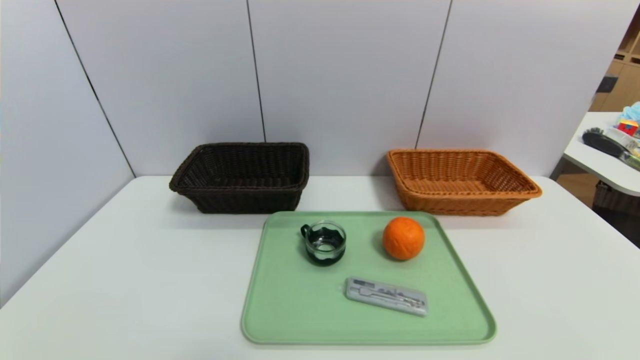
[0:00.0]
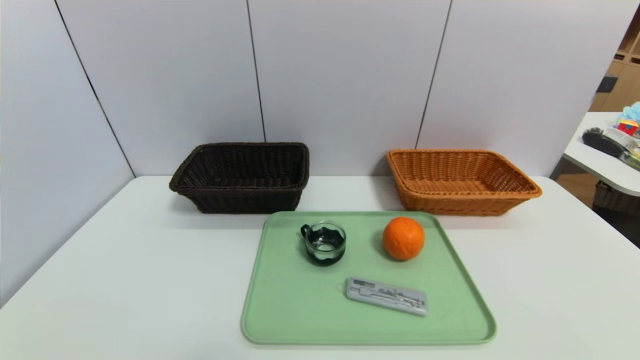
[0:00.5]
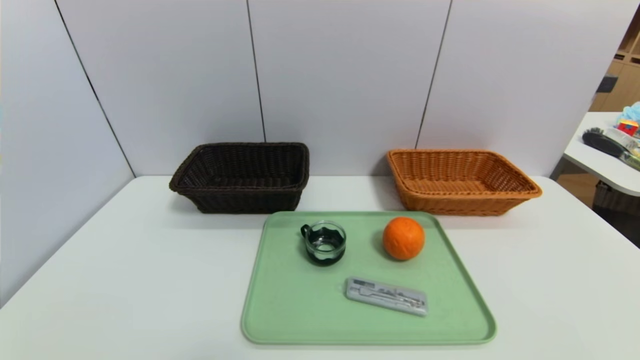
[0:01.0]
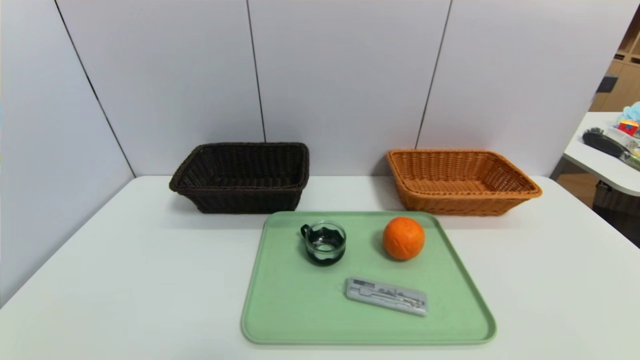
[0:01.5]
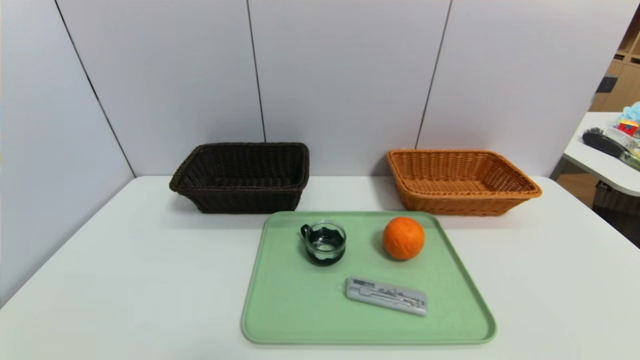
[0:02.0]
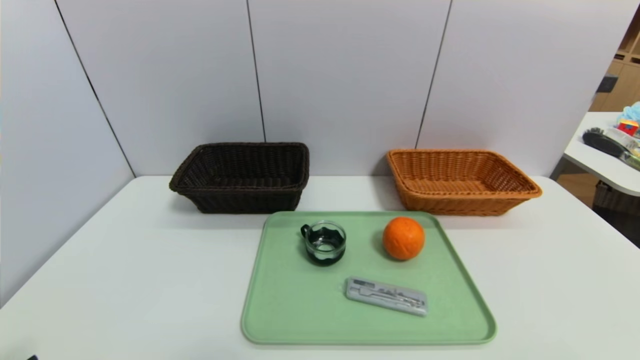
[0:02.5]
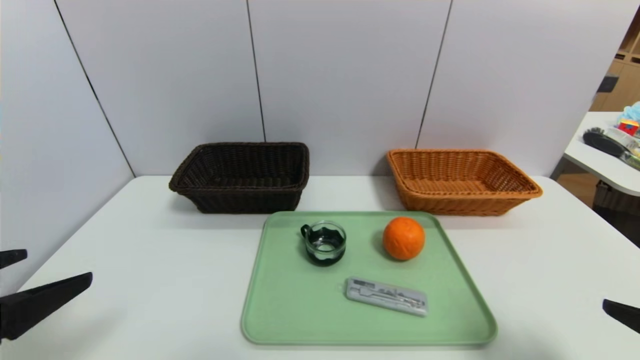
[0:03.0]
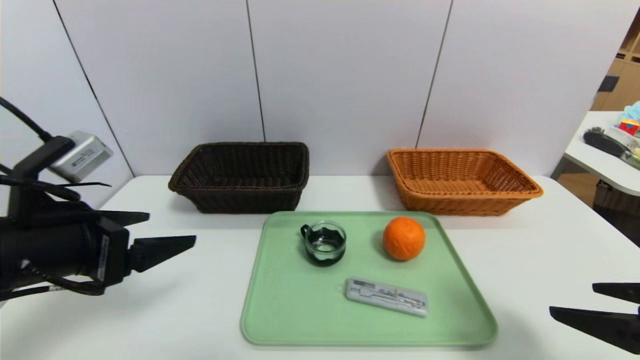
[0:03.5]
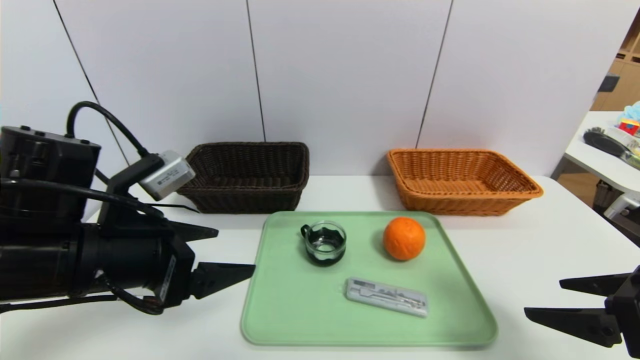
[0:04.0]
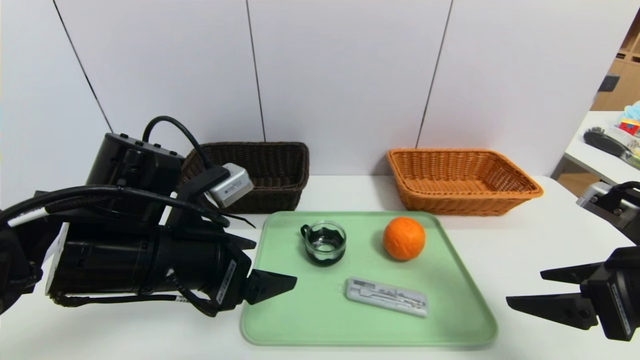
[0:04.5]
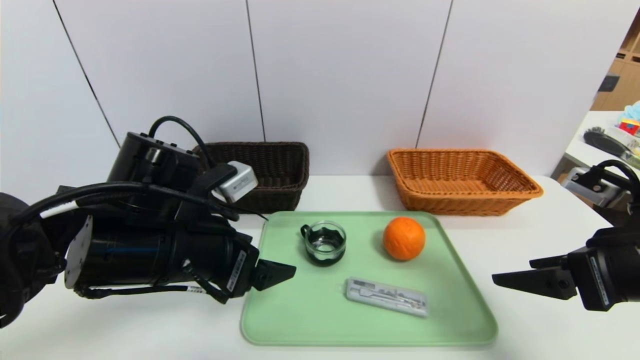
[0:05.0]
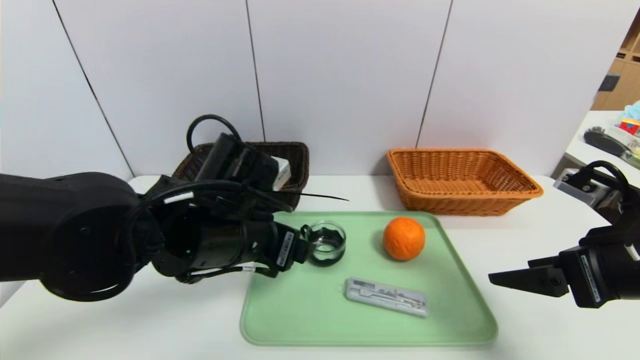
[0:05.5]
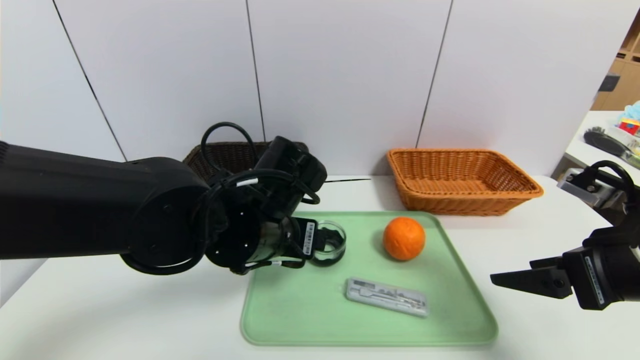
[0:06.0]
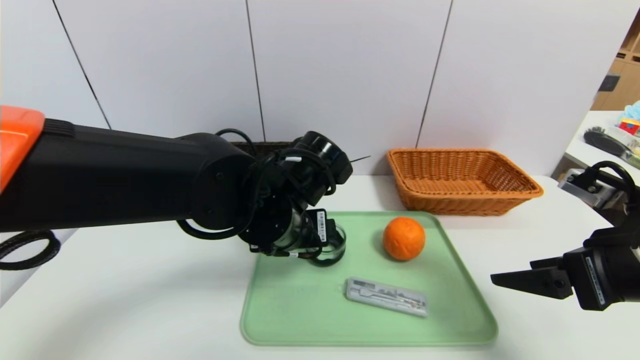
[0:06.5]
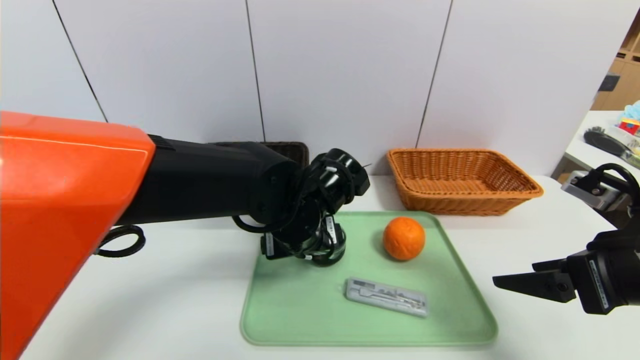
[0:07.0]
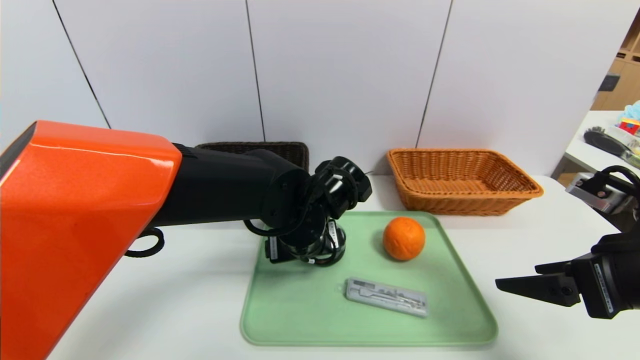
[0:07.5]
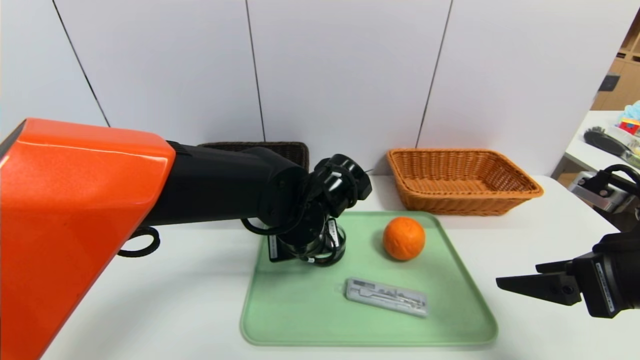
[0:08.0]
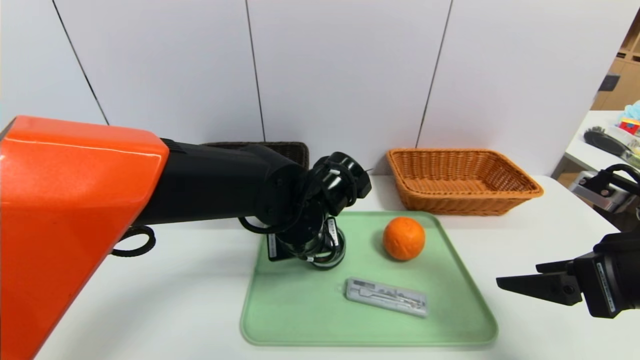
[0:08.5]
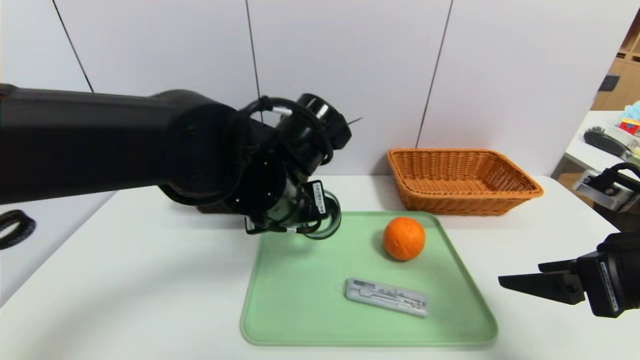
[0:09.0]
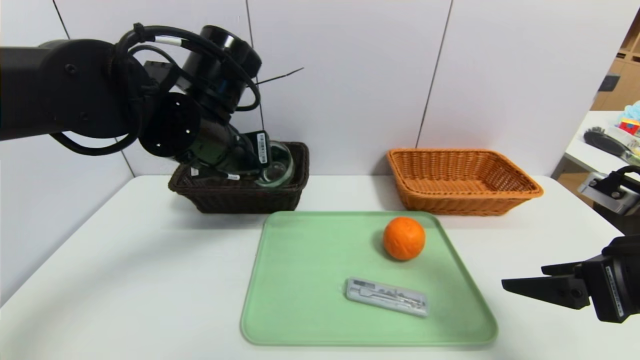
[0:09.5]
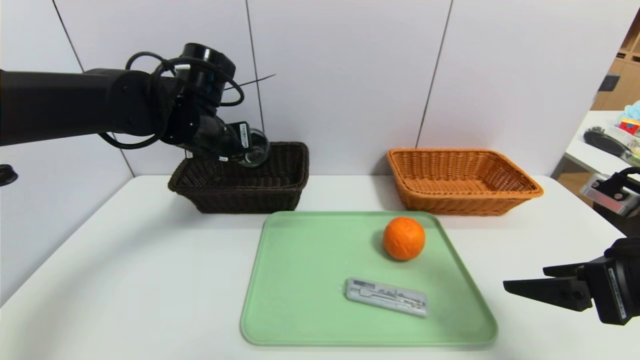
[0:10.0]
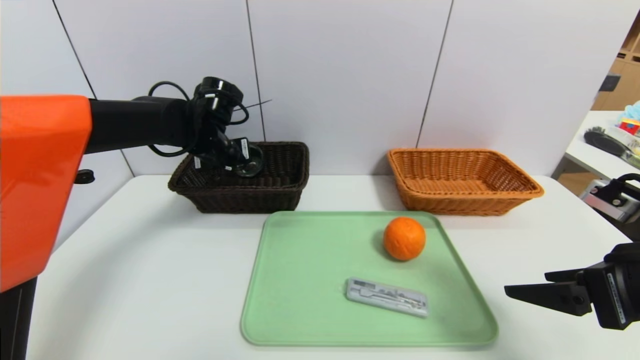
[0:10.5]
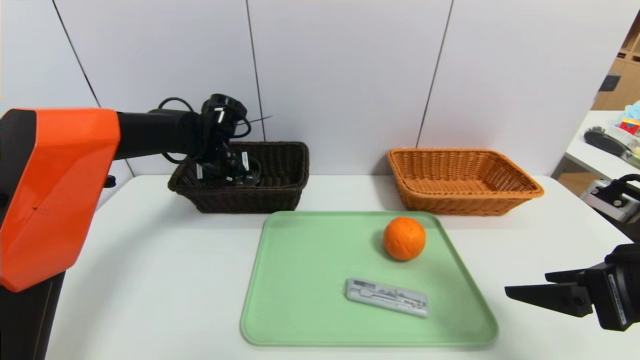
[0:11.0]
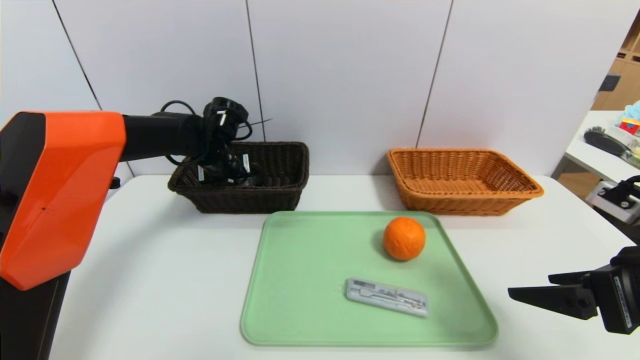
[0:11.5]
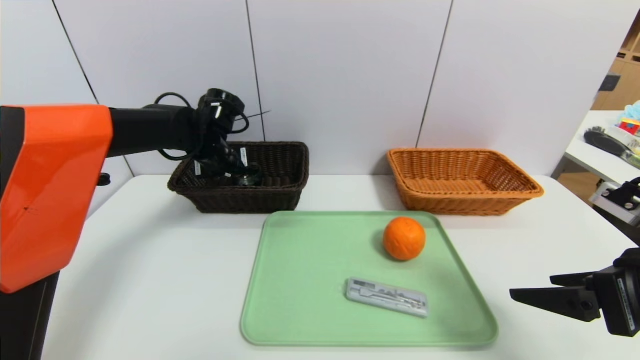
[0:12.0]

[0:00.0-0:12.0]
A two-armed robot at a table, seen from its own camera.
Task of the whole recording: place the food in the right basket with the right gripper, and place the non food items in the left basket with the left gripper.
Step, 0:00.0 to 0:12.0: Grasp the tea cup and put it in the left basket.
0:02.0 to 0:04.0: The left gripper moves forward, upward and to the right, approximately 25 cm; the right gripper travels forward and upward by approximately 20 cm.
0:04.0 to 0:06.0: The left gripper is displaced to the right and forward by roughly 15 cm.
0:06.0 to 0:08.0: The left gripper shifts by about 5 cm, and closes up.
0:08.0 to 0:10.0: The left gripper travels to the left, upward and forward by approximately 20 cm, and closes up.
0:10.0 to 0:12.0: The left gripper goes some 10 cm forward and downward, and opens its fingers.

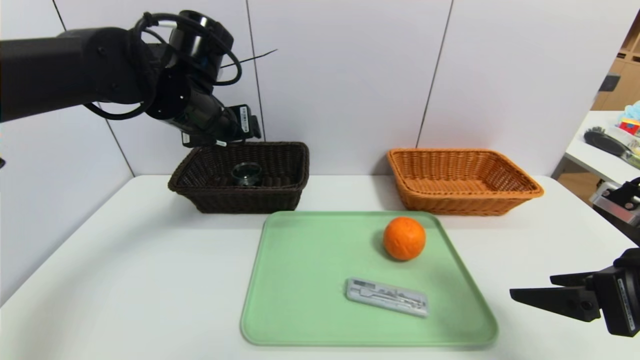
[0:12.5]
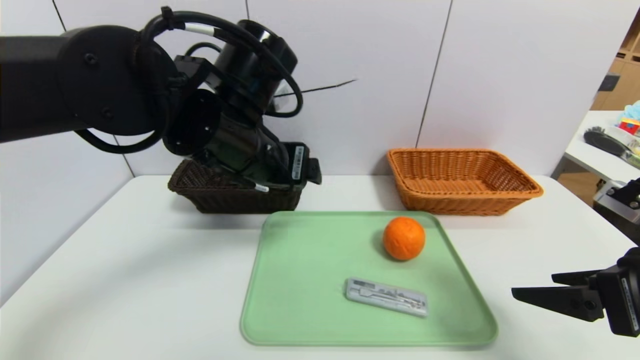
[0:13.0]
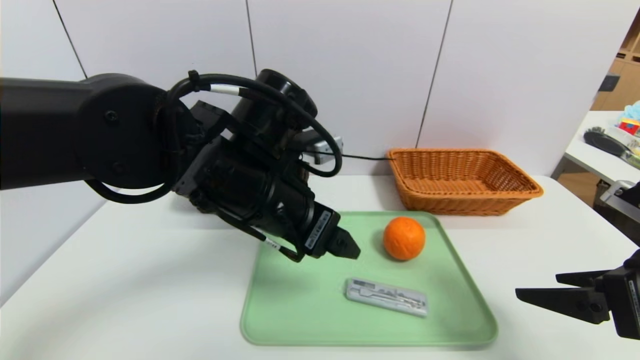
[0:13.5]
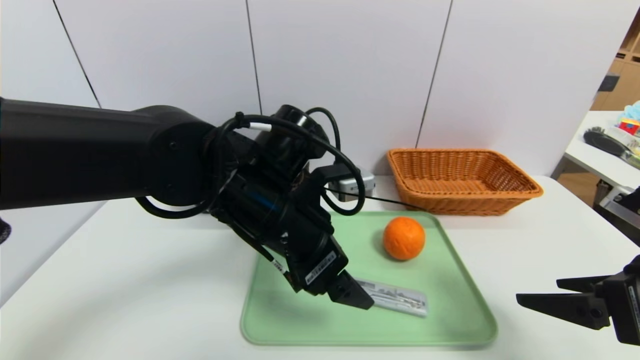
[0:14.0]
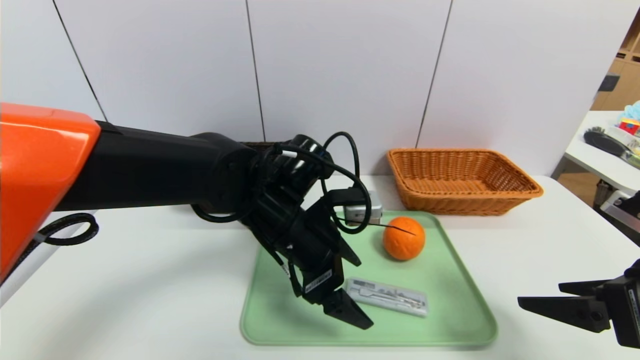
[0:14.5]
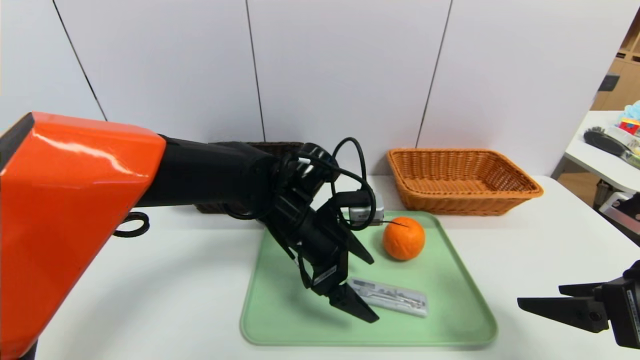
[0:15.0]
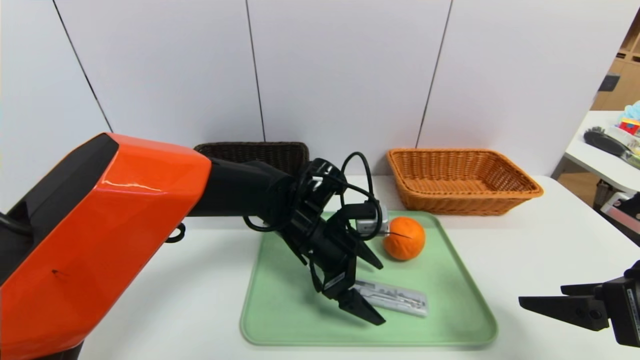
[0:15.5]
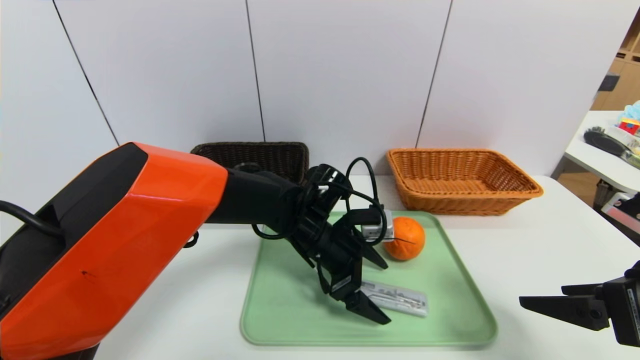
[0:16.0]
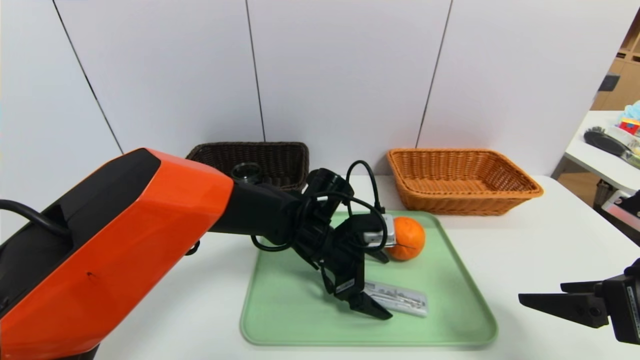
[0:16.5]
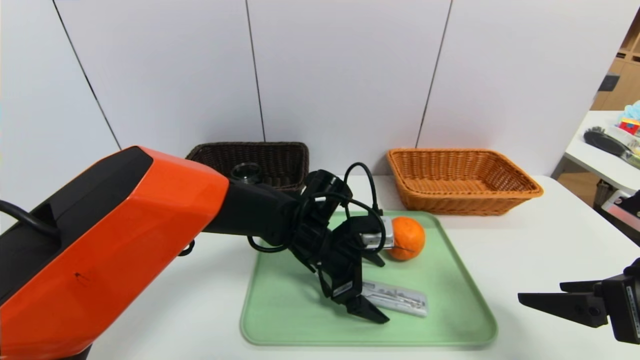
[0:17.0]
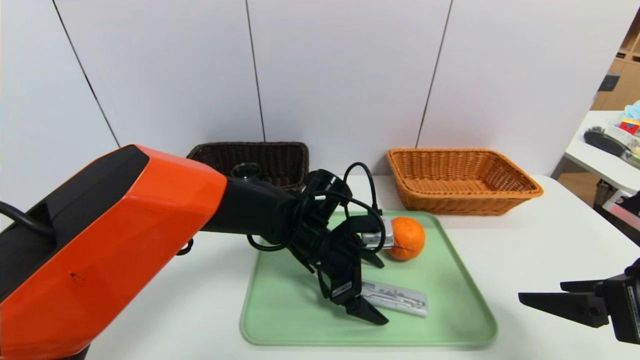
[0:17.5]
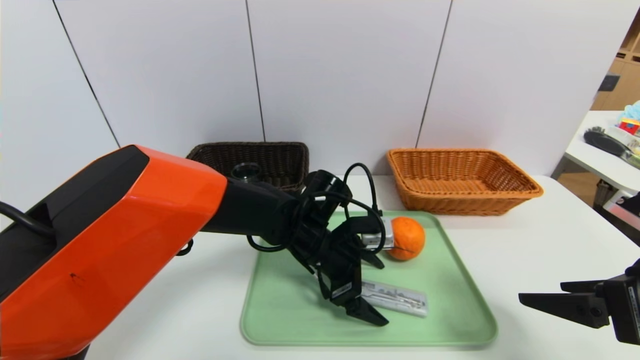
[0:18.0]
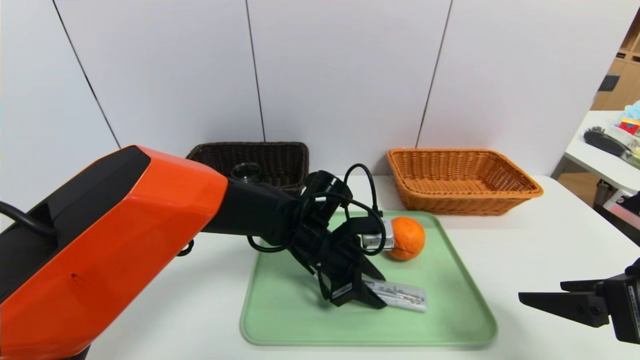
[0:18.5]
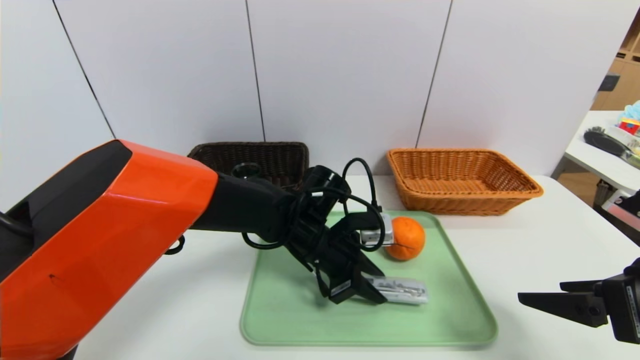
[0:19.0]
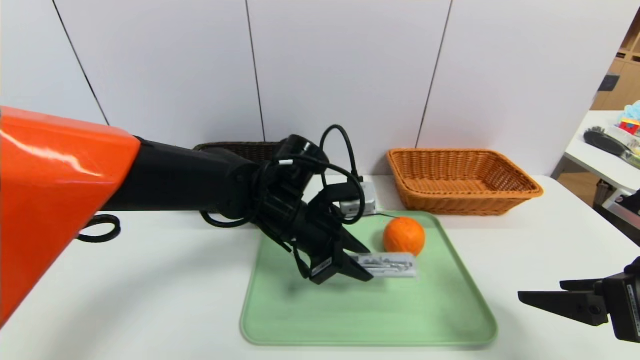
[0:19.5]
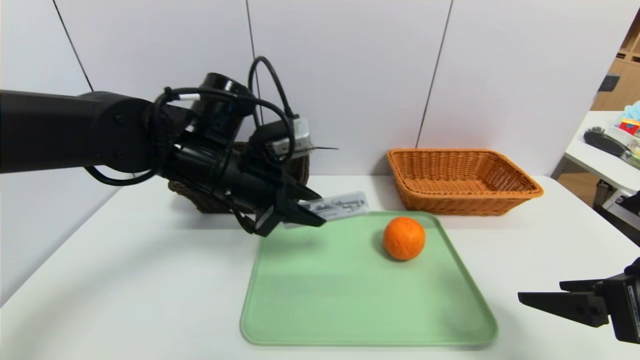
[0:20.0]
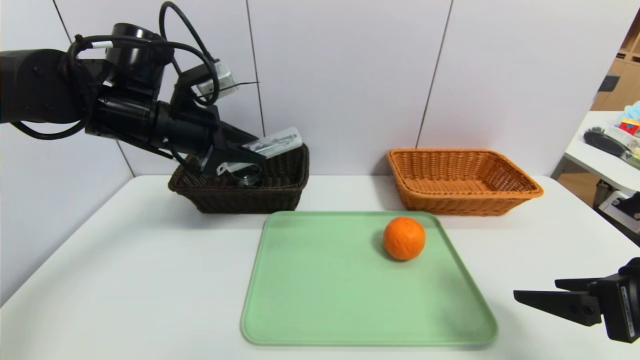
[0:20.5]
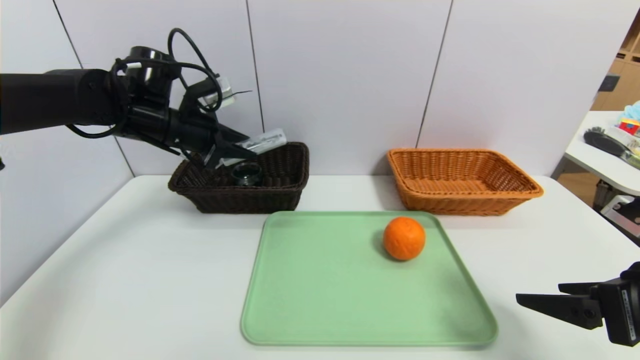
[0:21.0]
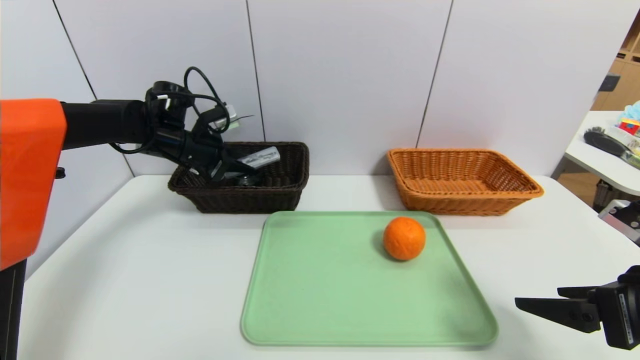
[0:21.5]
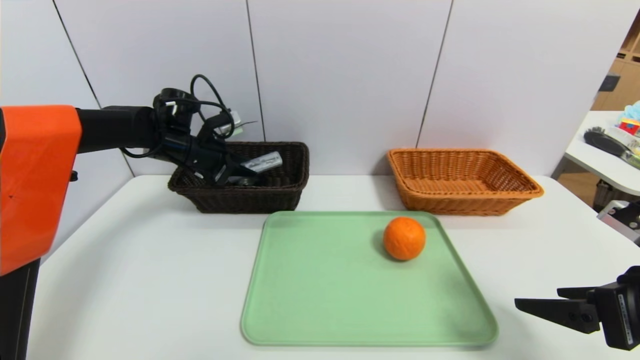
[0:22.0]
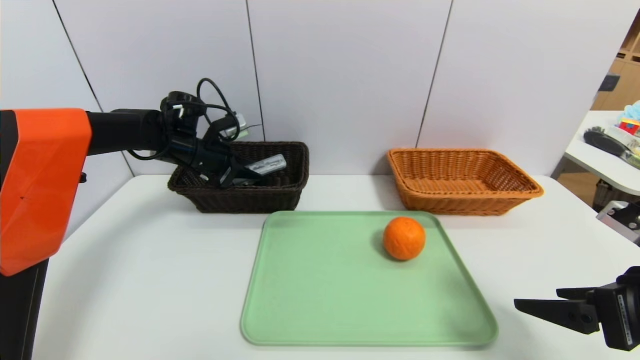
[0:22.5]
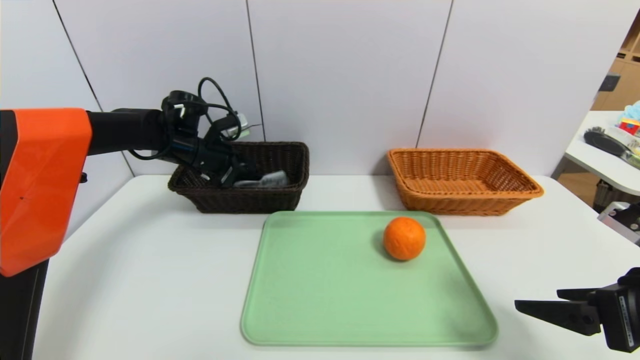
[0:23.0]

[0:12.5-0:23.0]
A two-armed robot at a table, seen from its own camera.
Task of the whole recording: place the food in the right basket with the right gripper, and place the non food items in the left basket with the left gripper.
0:12.5 to 0:14.5: The left gripper goes about 20 cm to the right, downward and backward.
0:14.5 to 0:16.5: The left gripper is displaced downward by approximately 5 cm.
0:16.5 to 0:19.0: The left gripper closes its fingers.
0:19.0 to 0:21.0: The left gripper shifts roughly 25 cm to the left and upward.
0:21.0 to 0:23.0: The left gripper heads downward and forward, covering about 10 cm.
